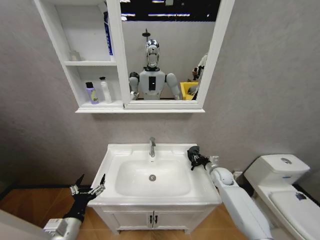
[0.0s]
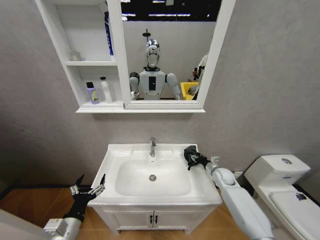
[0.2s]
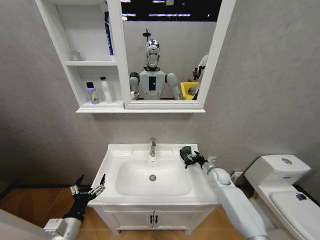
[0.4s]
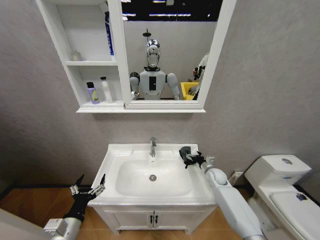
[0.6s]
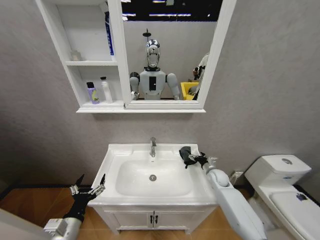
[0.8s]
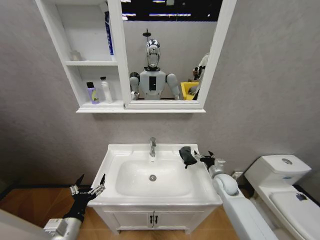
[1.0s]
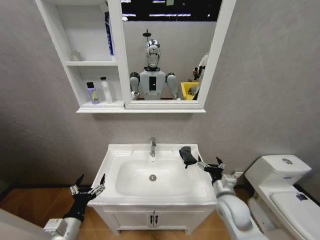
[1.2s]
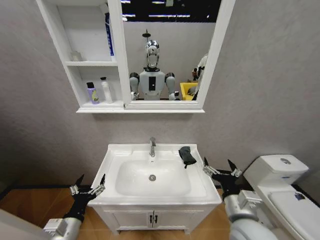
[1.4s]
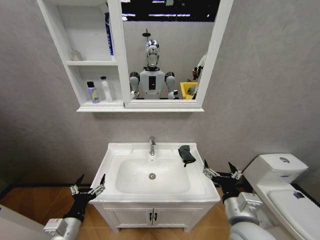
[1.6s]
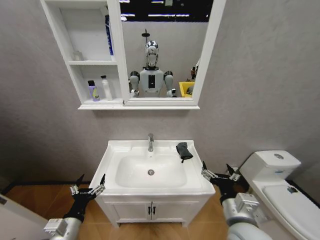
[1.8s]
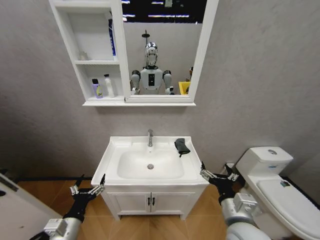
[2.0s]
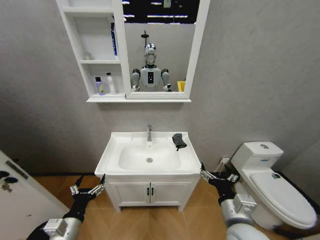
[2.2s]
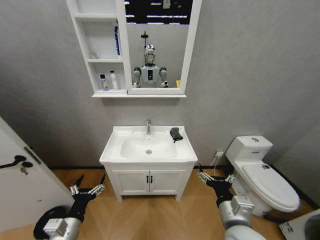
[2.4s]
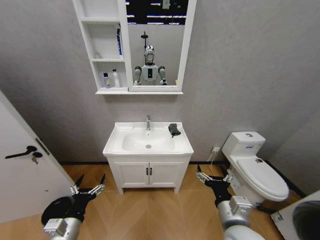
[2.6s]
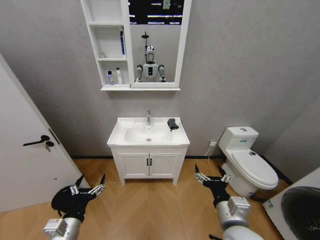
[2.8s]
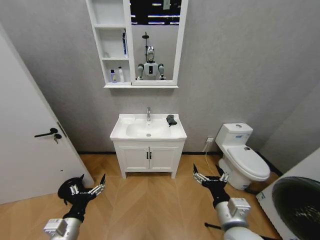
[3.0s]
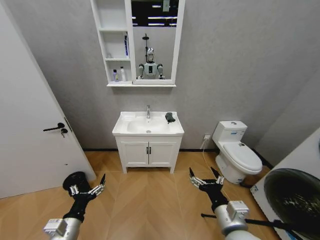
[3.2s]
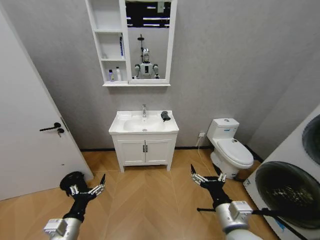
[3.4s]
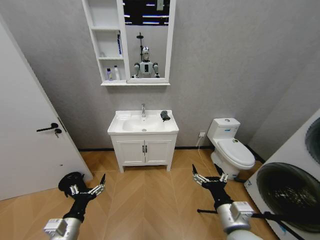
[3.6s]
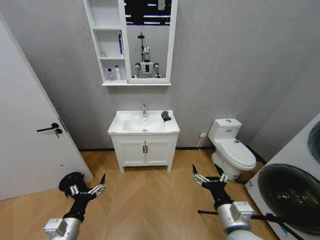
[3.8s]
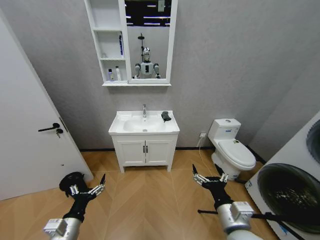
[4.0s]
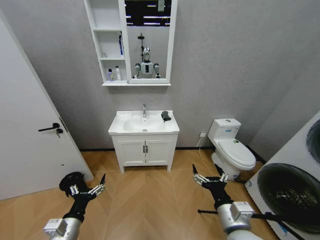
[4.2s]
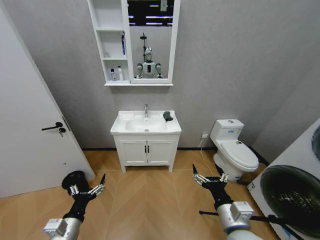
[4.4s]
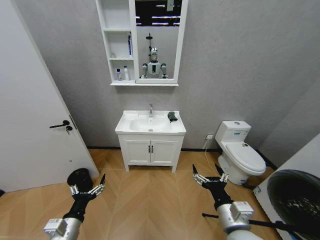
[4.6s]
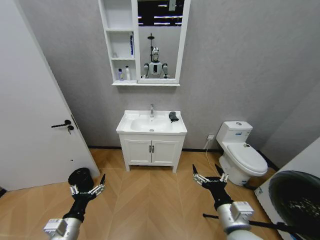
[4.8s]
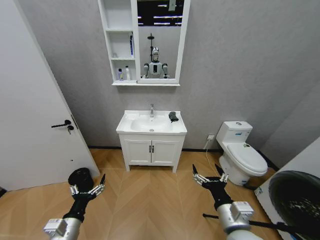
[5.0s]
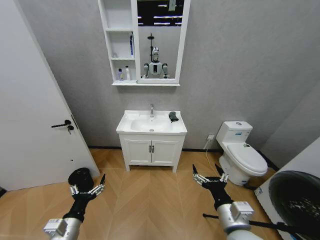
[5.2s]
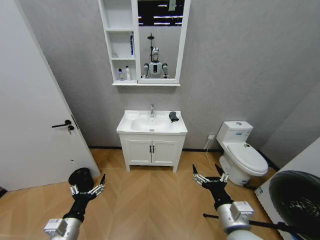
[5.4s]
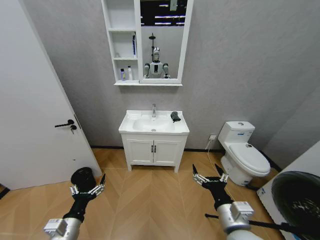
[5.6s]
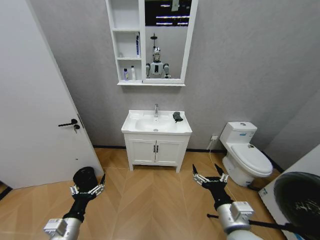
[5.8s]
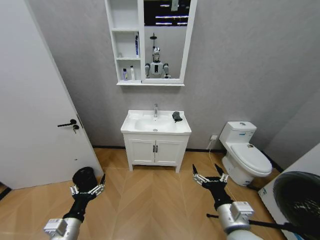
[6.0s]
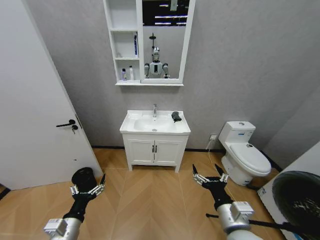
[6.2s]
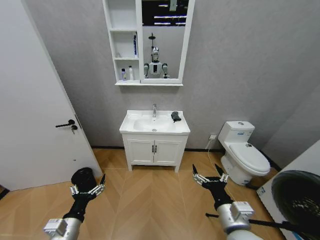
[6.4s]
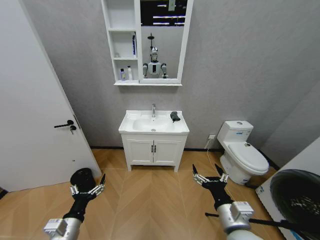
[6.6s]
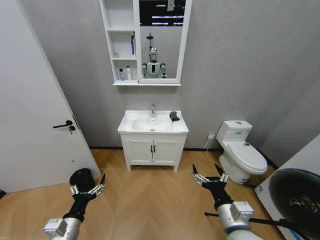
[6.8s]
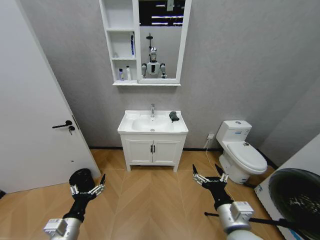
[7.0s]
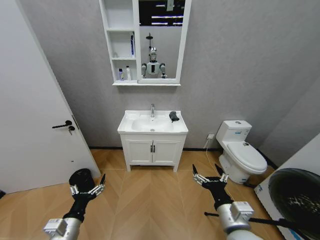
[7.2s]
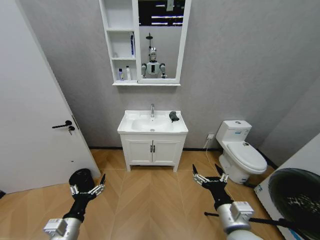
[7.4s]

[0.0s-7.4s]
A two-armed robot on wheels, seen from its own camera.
Task of the whole recording: Move facial cleanser and shampoo from washbasin to cabinet, then wipe washbasin with towel.
0.0s to 1.4s: The right gripper goes roughly 35 cm backward, to the left and upward, and opens.
3.0s to 4.4s: The grippers move only a little.
6.0s to 7.4s: The two grippers keep their place.
